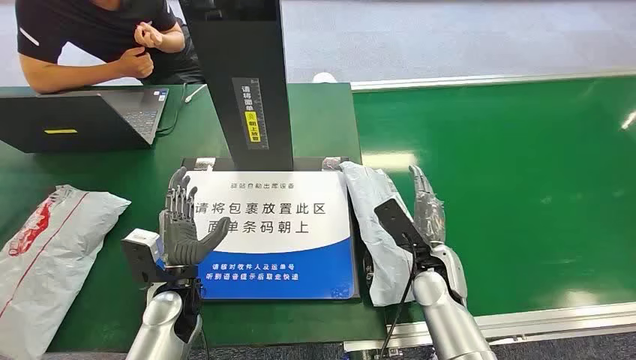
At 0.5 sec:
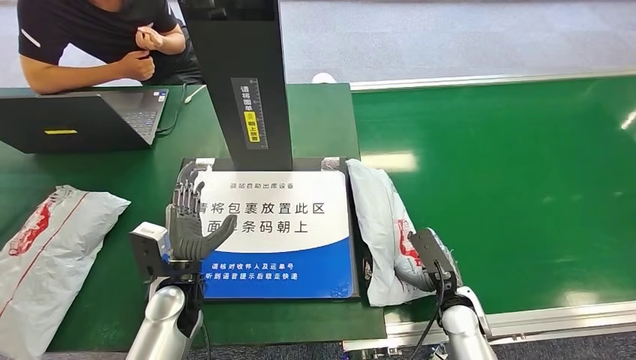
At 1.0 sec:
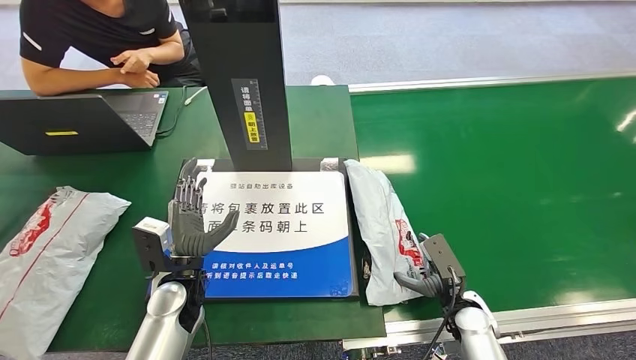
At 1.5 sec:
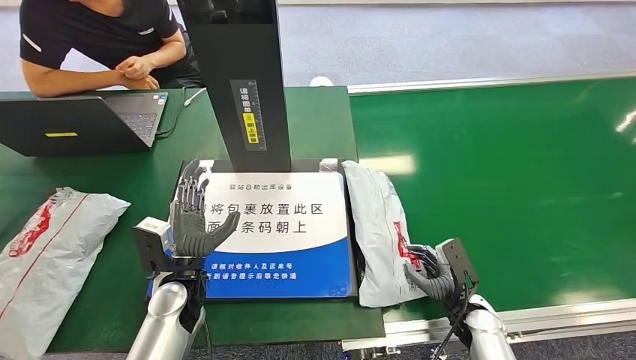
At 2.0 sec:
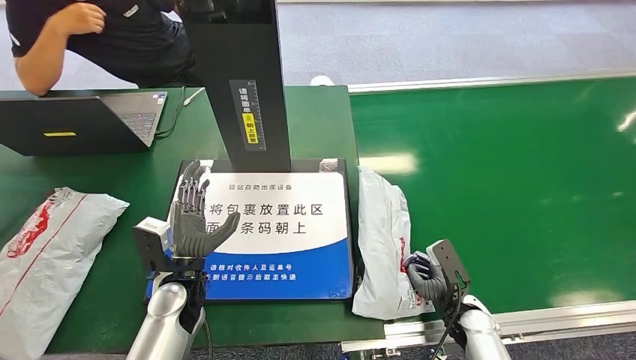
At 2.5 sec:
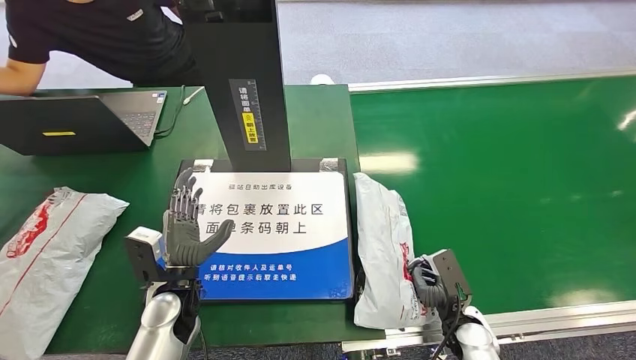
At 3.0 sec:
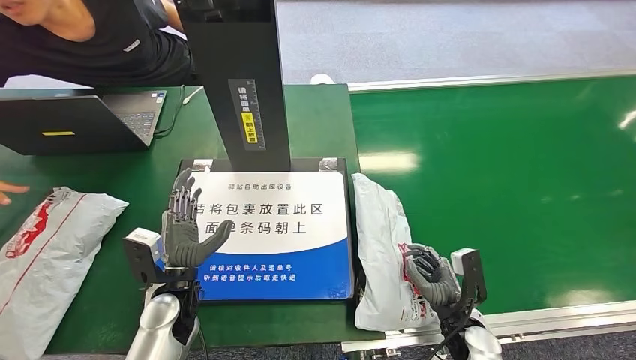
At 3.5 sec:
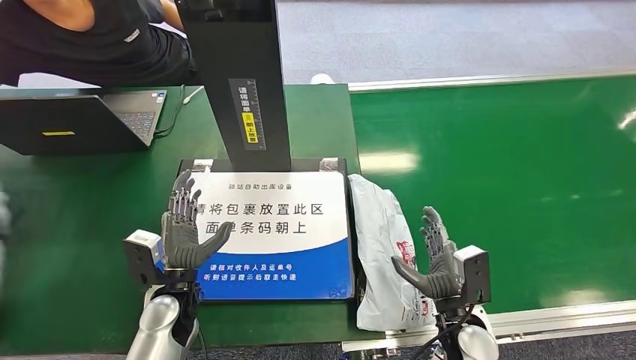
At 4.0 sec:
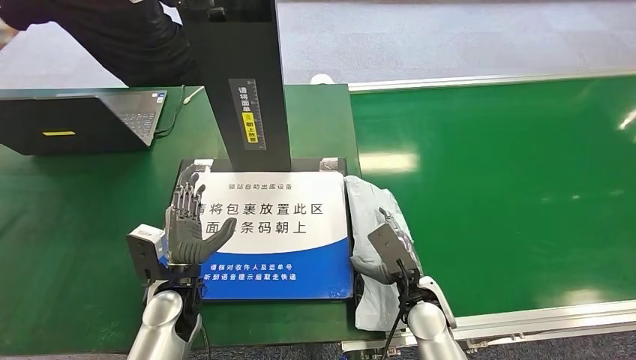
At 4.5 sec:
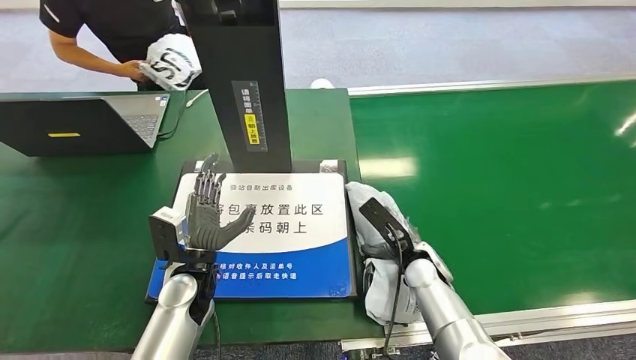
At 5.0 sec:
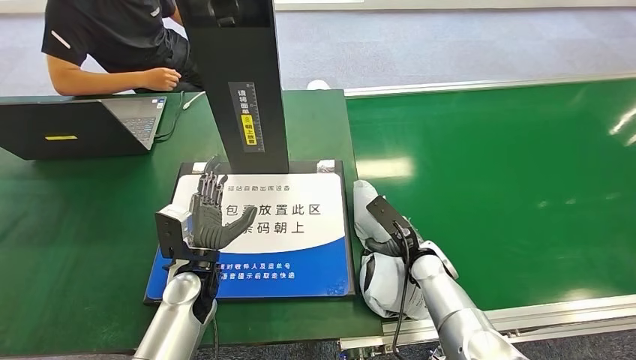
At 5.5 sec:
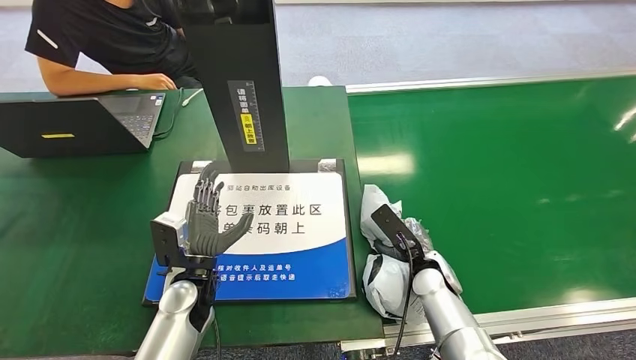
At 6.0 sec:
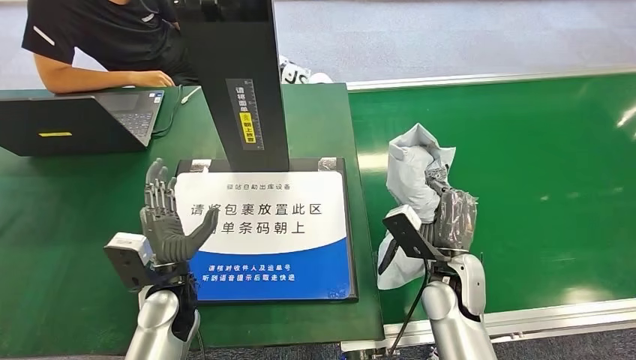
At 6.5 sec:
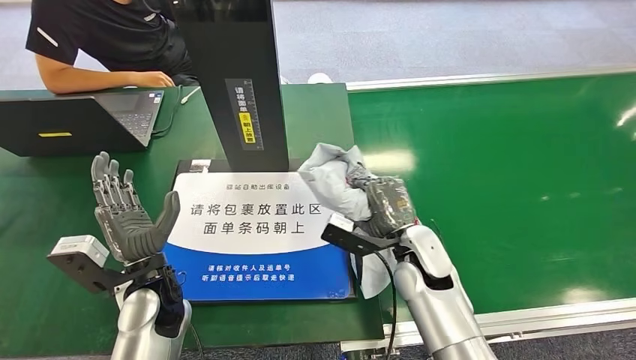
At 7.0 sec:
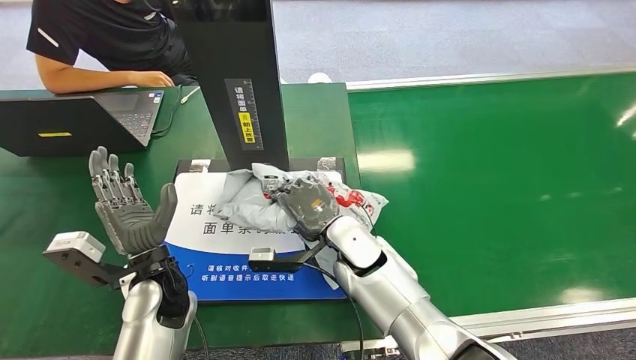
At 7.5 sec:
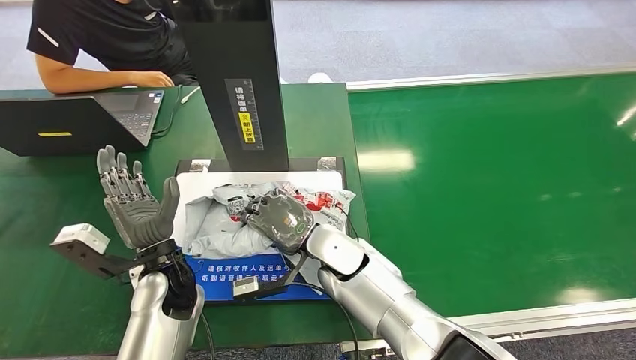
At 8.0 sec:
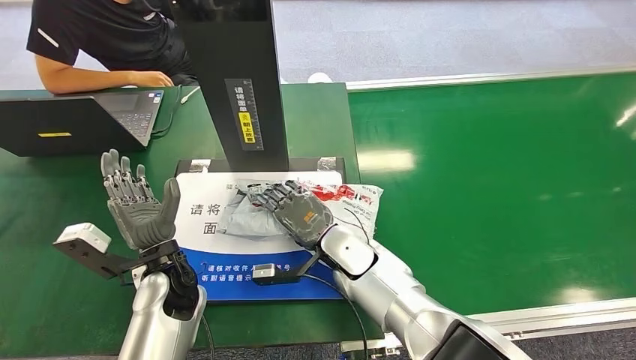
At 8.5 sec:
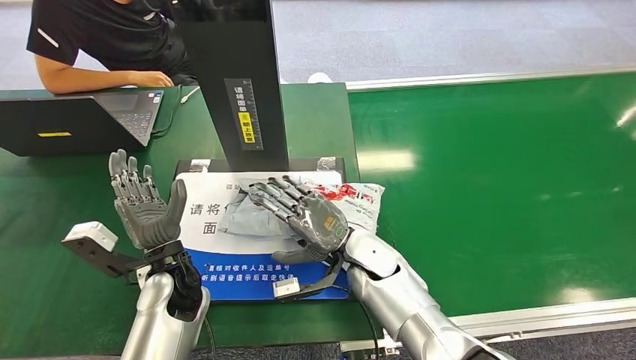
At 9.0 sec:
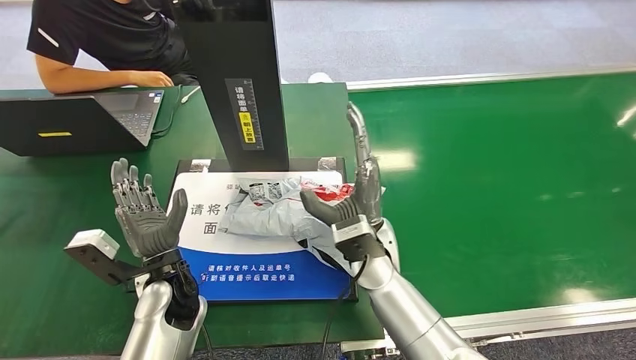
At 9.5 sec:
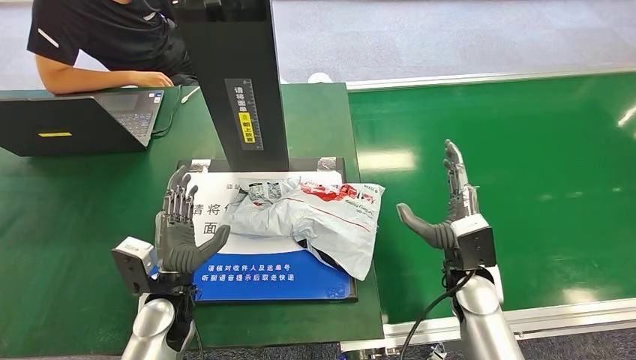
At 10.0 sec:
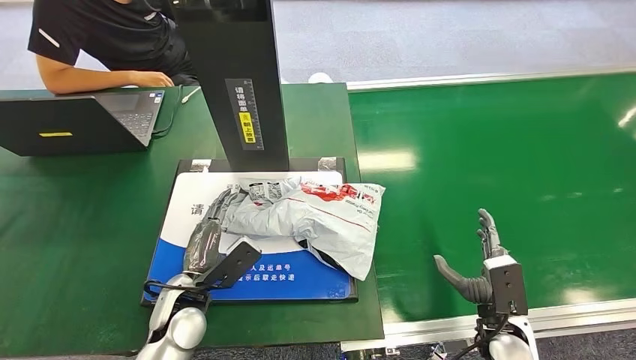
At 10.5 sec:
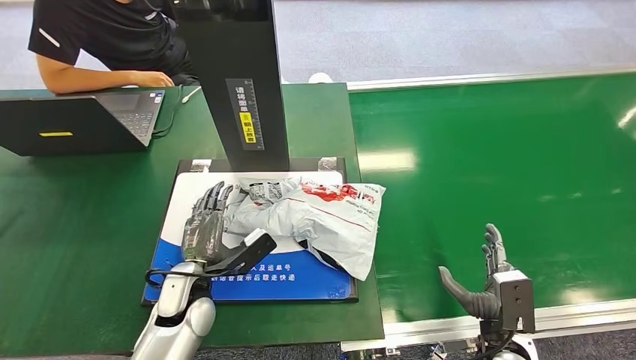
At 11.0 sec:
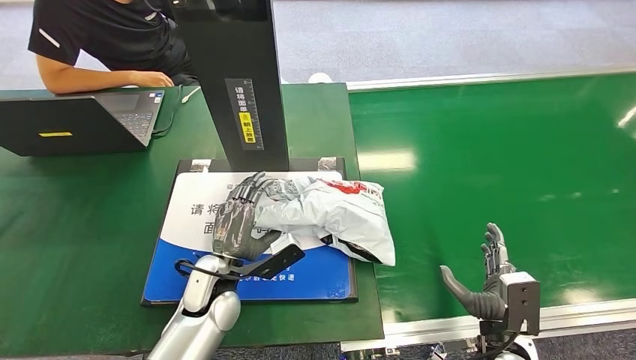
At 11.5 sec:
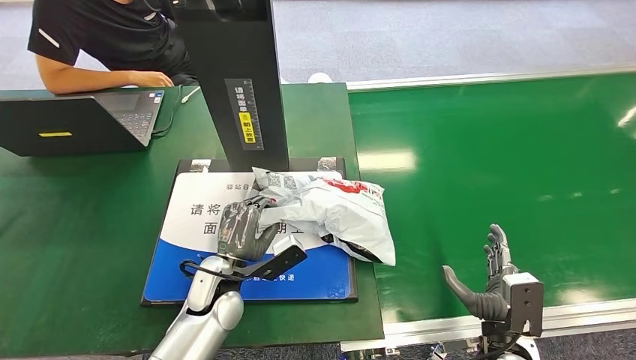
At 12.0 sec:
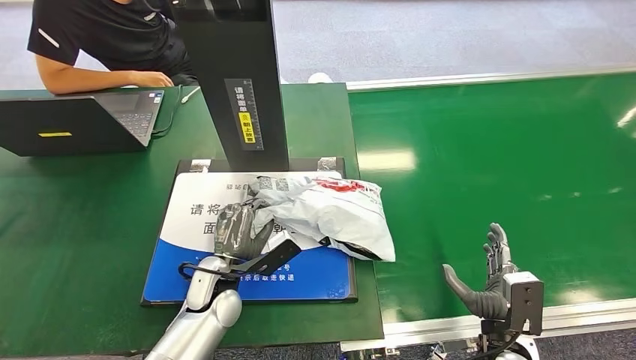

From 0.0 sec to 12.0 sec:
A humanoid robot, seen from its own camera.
Step, from 0.0 sec to 6.5 sec: Pick up the package from the conveyor belt.
Step, from 7.0 sec to 9.5 sec: Place the package onto the inbound machine.
From 8.0 sec to 10.0 sec: The left hand changes place by roughly 5 cm; the right hand is displaced to the right and backward by some 30 cm.
From 10.0 sec to 12.0 sec: The left hand changes place by about 5 cm.

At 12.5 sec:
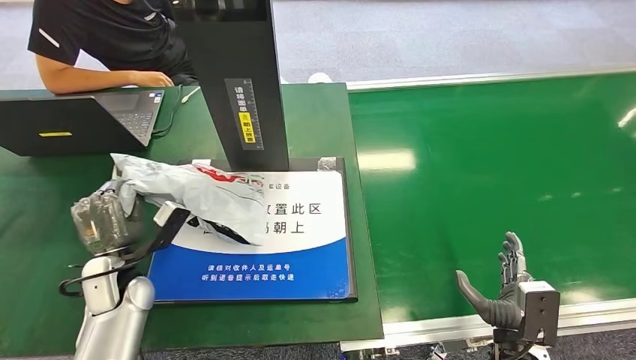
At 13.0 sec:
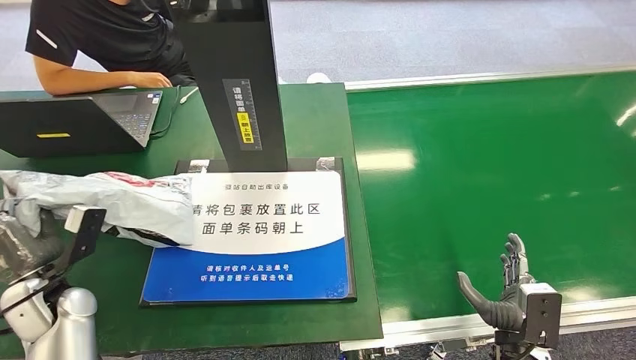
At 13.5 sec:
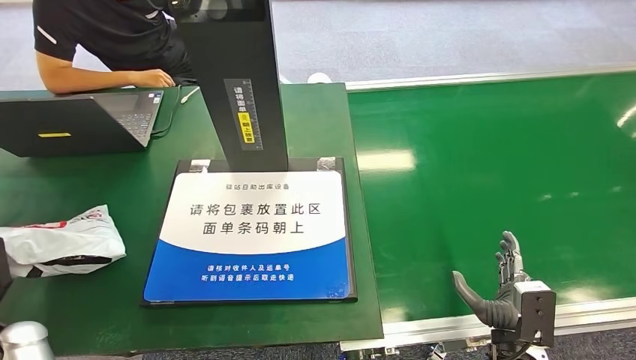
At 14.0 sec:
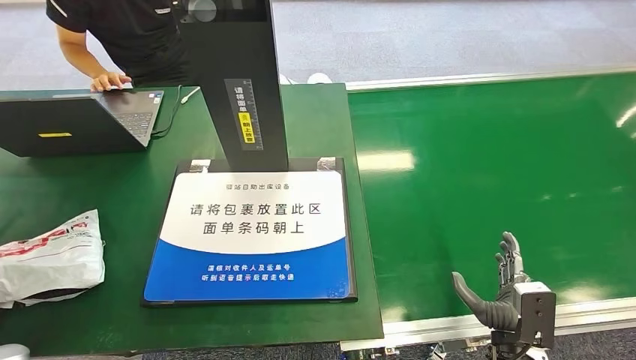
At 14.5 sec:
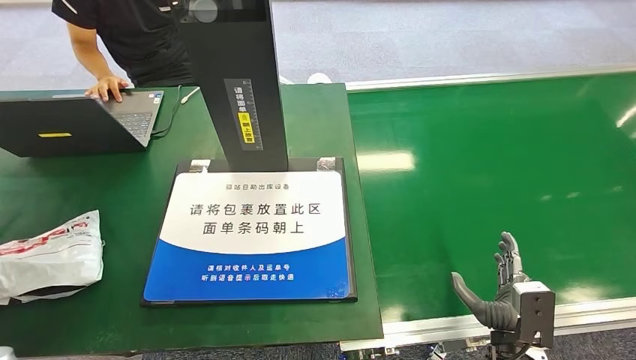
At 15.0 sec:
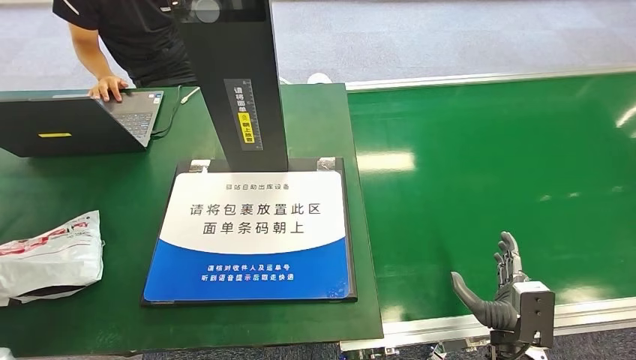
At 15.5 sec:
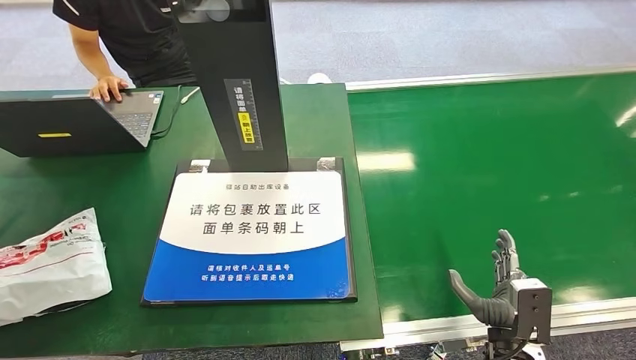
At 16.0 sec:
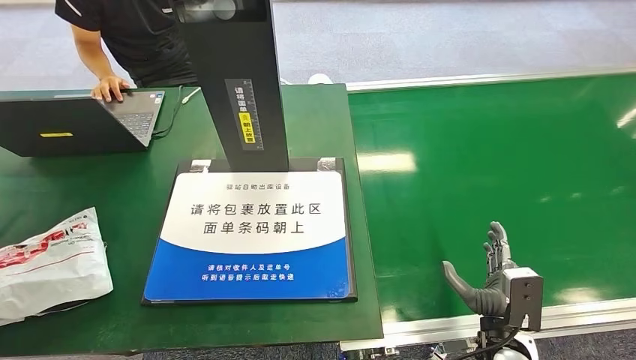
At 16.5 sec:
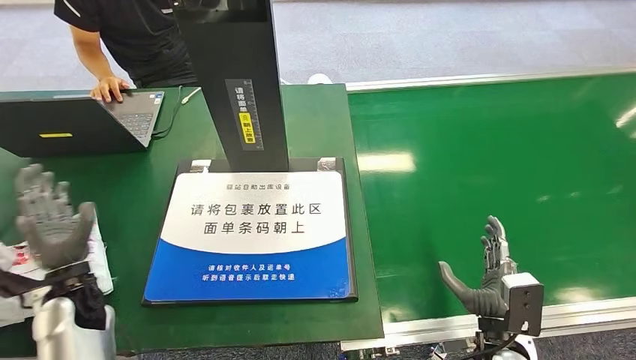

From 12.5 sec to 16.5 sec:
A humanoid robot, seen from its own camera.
Step, from 13.0 sec to 16.5 sec: Place the package into the parcel locker.
From 12.5 sec to 14.5 sec: The left hand moves to the left and backward, some 25 cm.
From 14.5 sec to 16.5 sec: The left hand heads to the right, forward and upward, covering about 20 cm.
